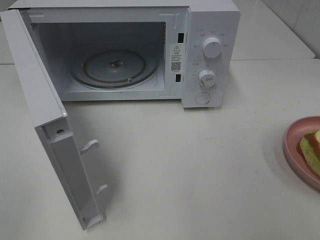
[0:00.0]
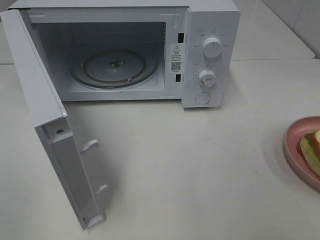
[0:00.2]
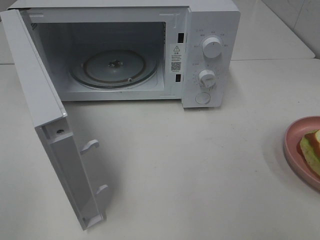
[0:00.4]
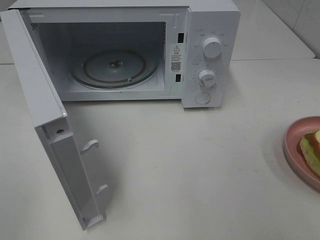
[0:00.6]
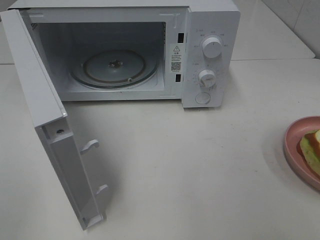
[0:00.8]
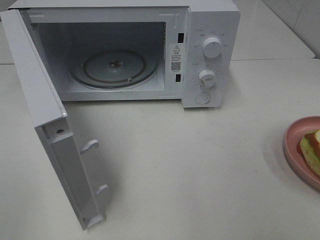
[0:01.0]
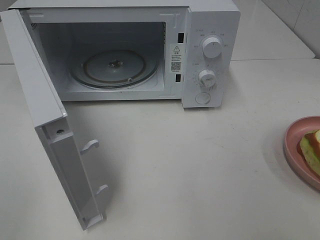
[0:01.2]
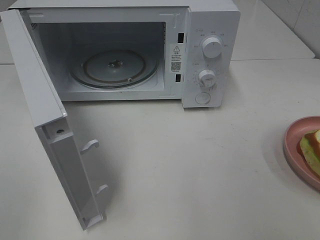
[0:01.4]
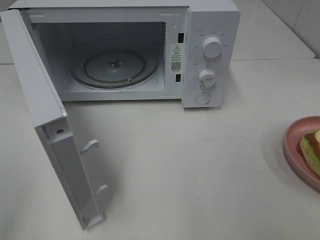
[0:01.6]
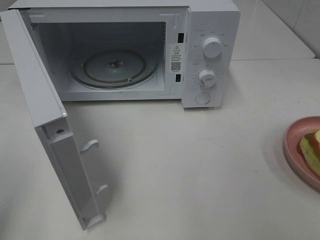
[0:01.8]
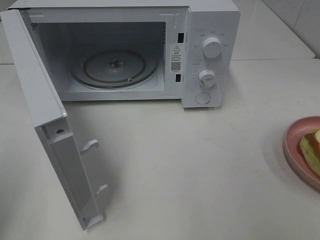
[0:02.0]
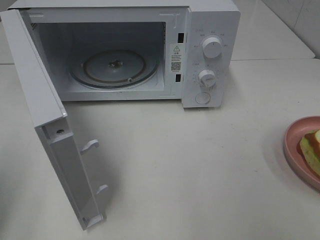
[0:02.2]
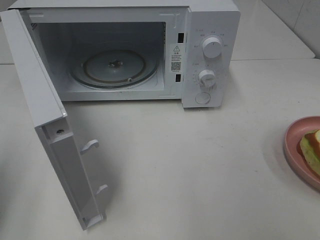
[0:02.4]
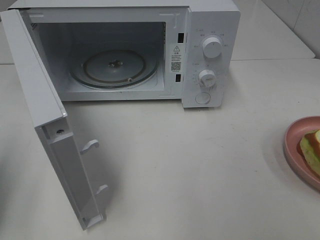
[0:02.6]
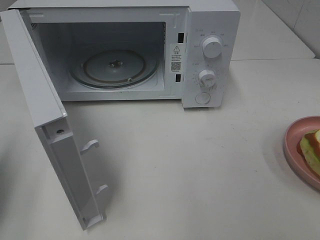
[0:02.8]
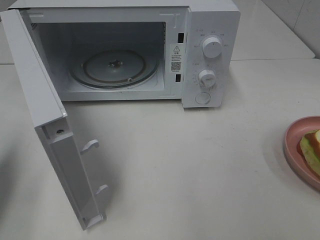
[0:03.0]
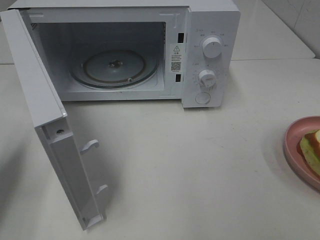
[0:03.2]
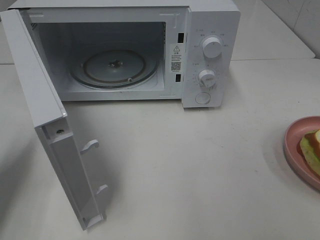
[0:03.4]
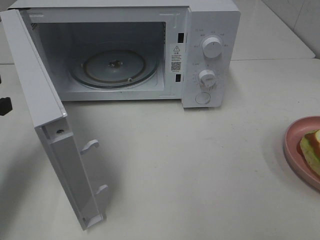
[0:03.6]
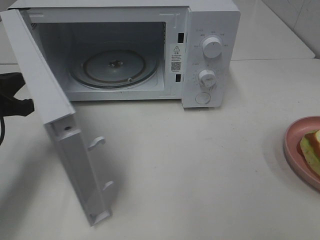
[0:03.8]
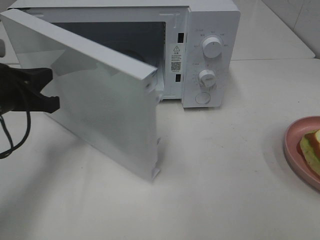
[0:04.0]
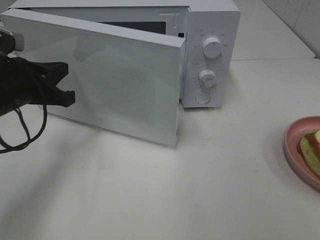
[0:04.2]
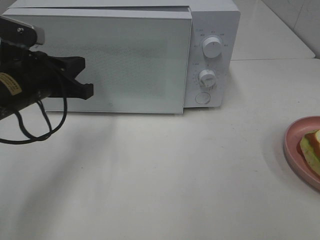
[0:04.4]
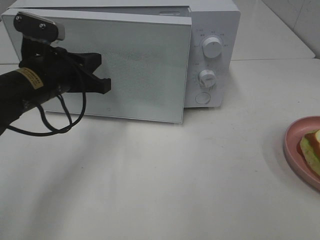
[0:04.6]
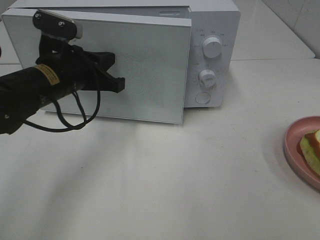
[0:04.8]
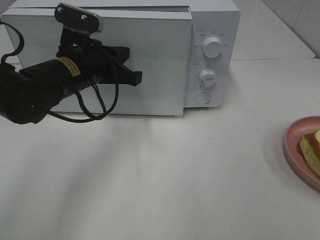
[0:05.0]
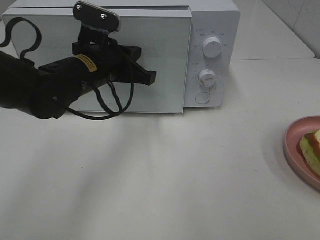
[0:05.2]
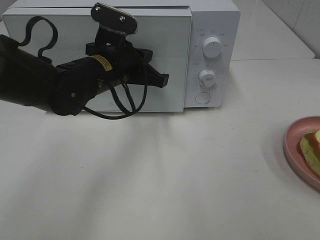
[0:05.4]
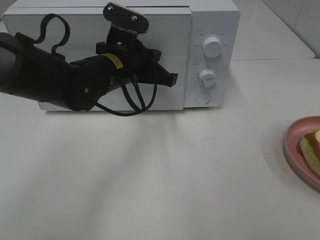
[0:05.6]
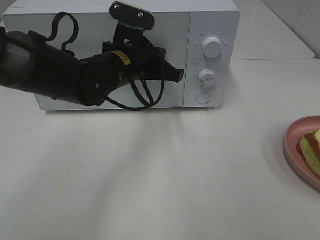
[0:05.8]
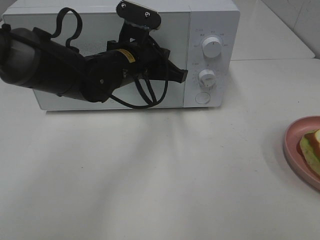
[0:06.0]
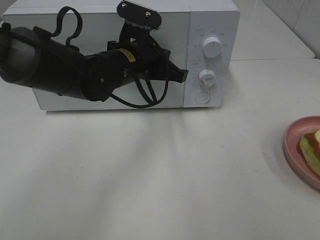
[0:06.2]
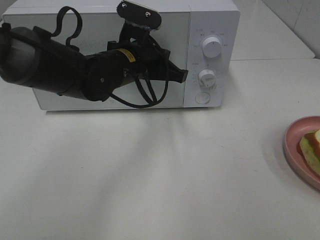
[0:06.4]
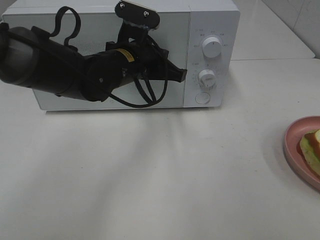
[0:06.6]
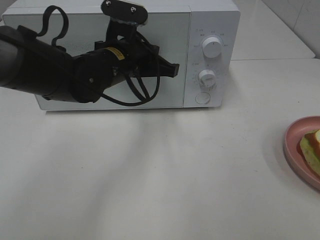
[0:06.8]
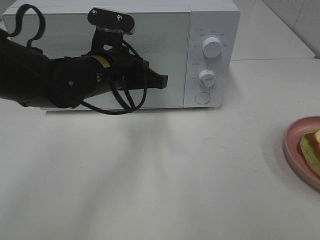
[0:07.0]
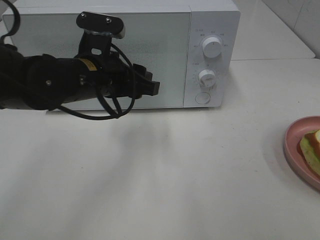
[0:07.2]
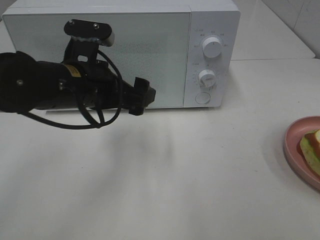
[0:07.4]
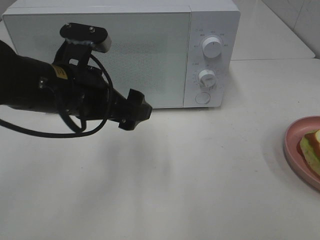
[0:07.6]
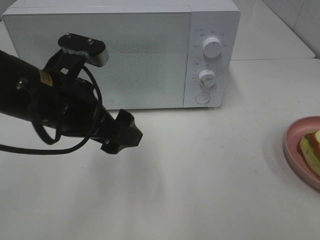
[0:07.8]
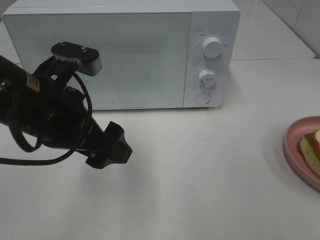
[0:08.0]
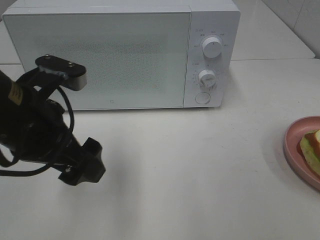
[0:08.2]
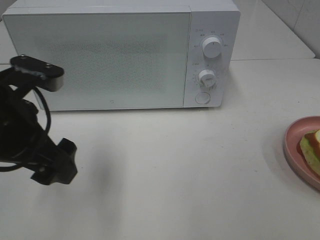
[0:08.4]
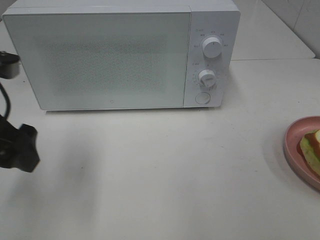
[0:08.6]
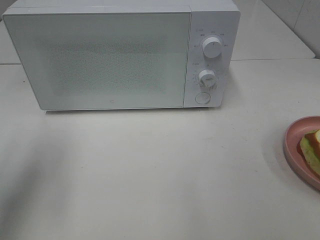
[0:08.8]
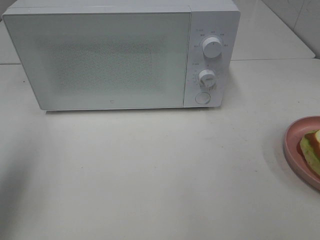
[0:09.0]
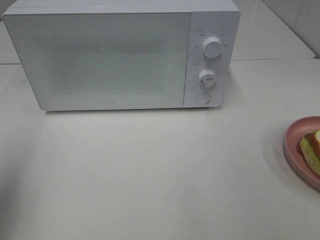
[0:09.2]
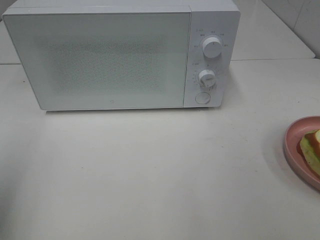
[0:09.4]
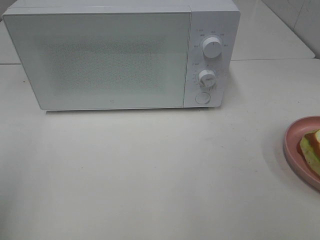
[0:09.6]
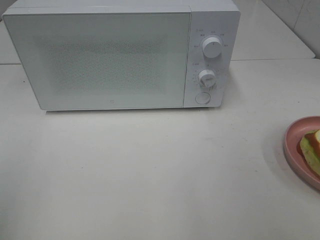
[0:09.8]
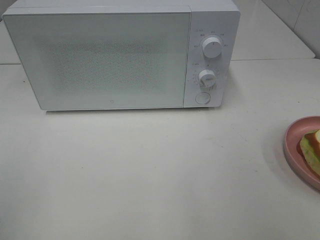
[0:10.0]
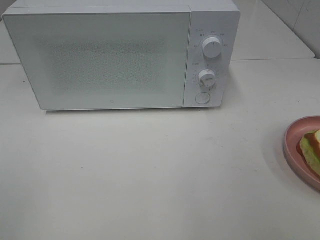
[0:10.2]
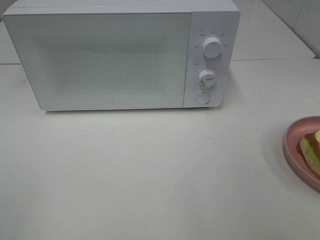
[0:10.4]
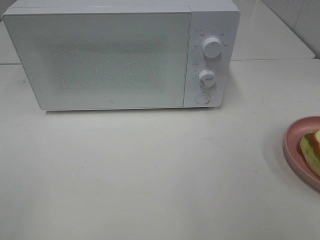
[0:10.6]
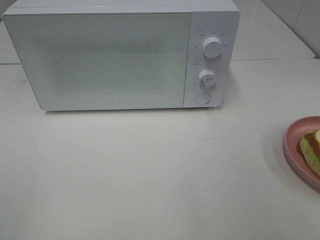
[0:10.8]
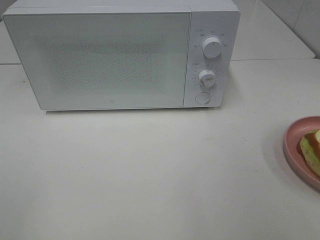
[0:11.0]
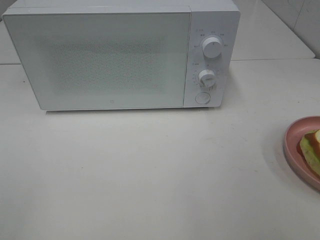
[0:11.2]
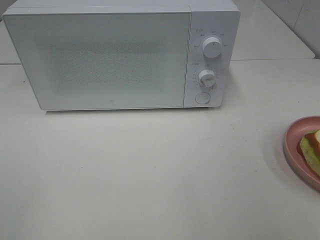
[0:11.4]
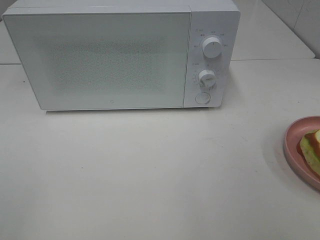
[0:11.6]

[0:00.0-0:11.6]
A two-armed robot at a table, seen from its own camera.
Task of the whole recording: Heat Sandwich.
Step, 0:00.0 to 0:07.2: Left hand: close the microwave door.
0:01.4 to 0:02.8: The left gripper travels forward and downward by approximately 15 cm, and closes its fingers.
0:02.8 to 0:04.4: The left gripper heads to the right and forward, covering approximately 20 cm.
0:04.4 to 0:05.8: The left gripper shifts some 15 cm to the right and forward.
0:05.8 to 0:07.2: The left gripper shifts approximately 5 cm backward, and opens.
0:07.2 to 0:08.8: The left gripper heads to the left, backward and upward, covering roughly 25 cm, and opens.
0:08.8 to 0:10.2: The left gripper goes roughly 20 cm backward.
